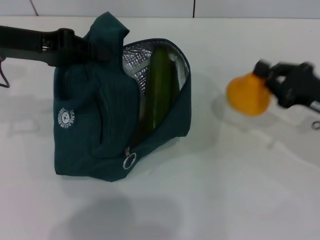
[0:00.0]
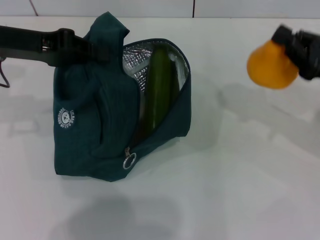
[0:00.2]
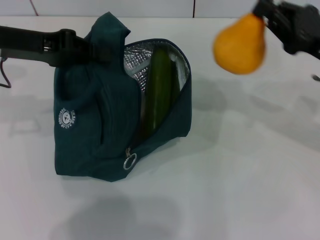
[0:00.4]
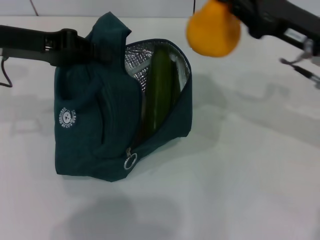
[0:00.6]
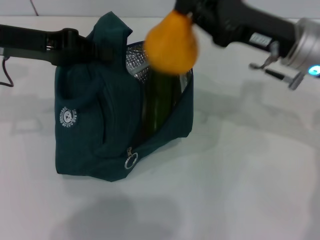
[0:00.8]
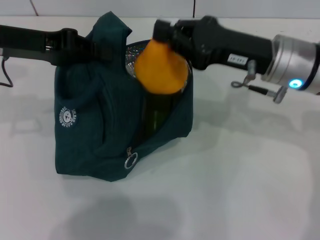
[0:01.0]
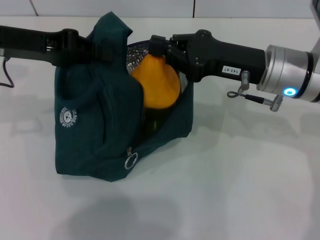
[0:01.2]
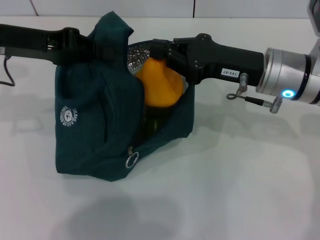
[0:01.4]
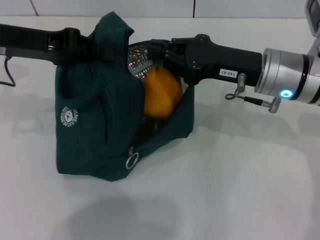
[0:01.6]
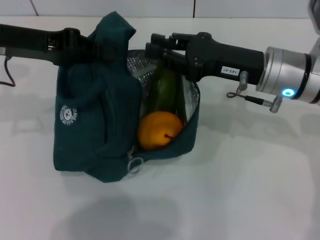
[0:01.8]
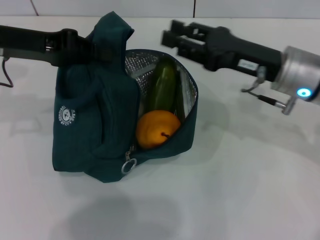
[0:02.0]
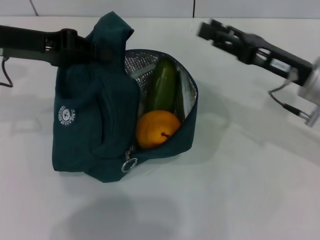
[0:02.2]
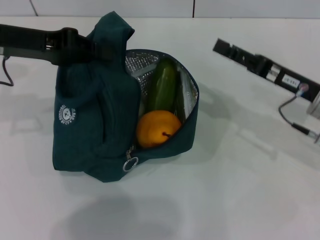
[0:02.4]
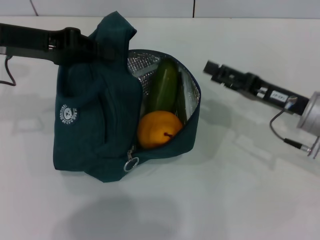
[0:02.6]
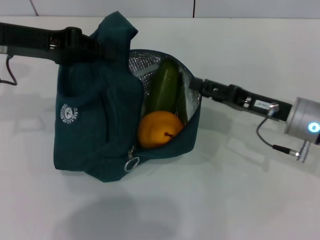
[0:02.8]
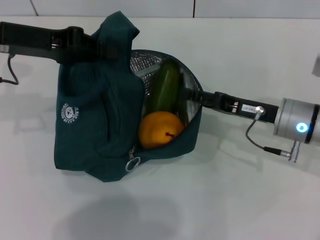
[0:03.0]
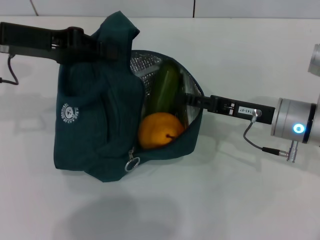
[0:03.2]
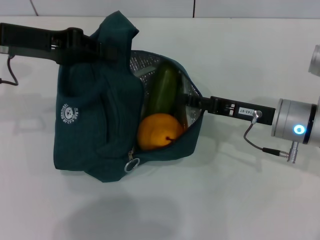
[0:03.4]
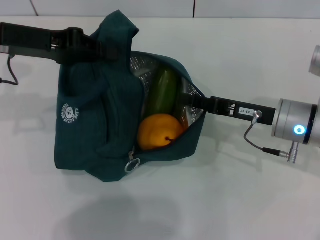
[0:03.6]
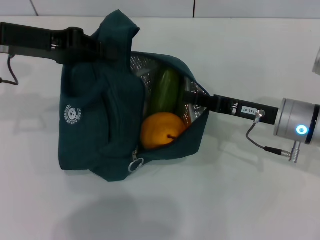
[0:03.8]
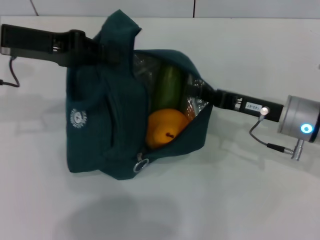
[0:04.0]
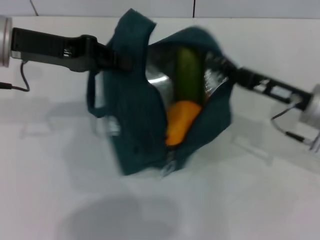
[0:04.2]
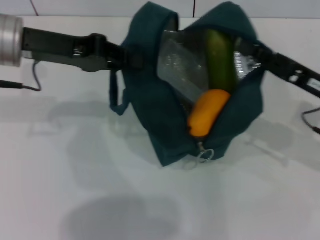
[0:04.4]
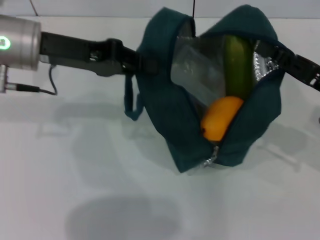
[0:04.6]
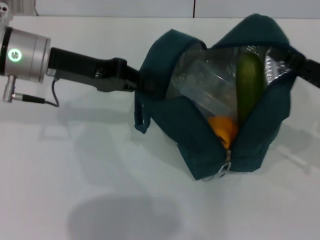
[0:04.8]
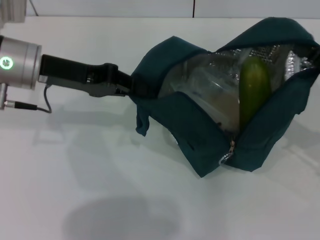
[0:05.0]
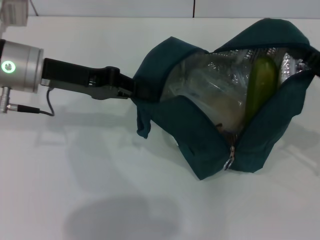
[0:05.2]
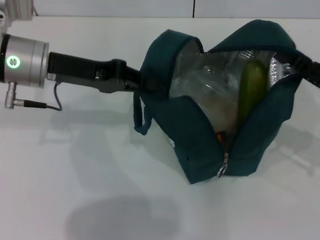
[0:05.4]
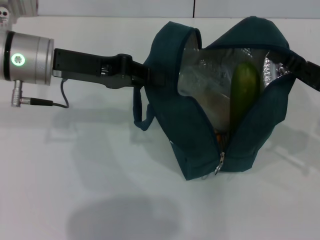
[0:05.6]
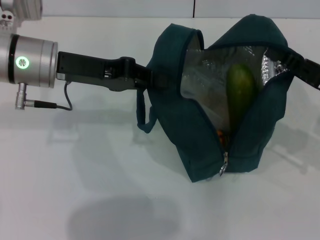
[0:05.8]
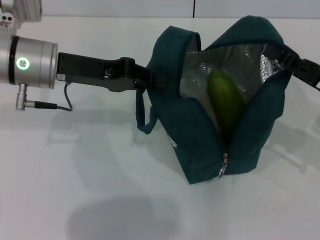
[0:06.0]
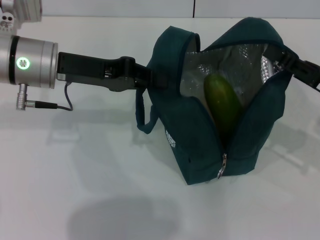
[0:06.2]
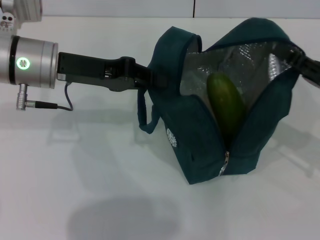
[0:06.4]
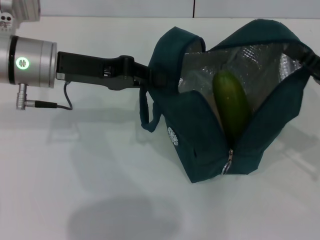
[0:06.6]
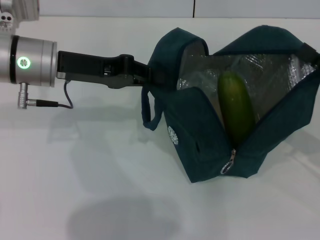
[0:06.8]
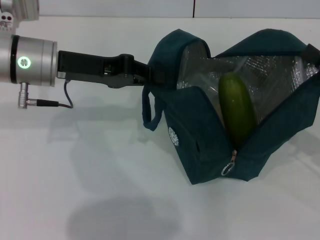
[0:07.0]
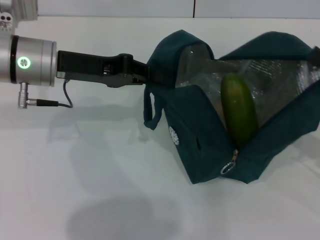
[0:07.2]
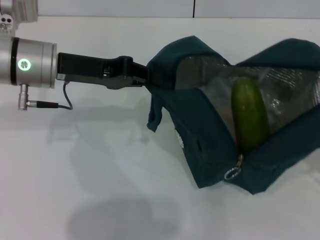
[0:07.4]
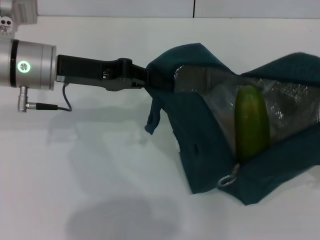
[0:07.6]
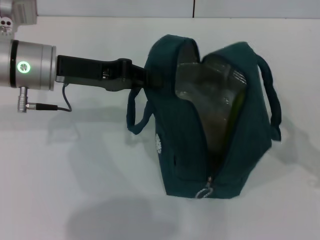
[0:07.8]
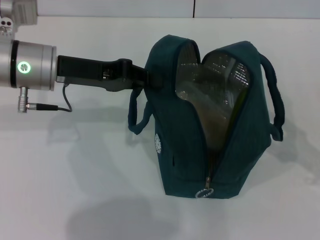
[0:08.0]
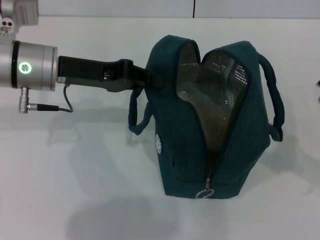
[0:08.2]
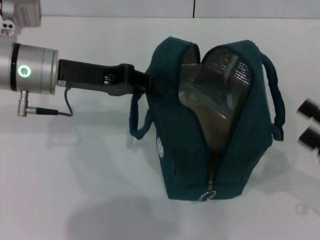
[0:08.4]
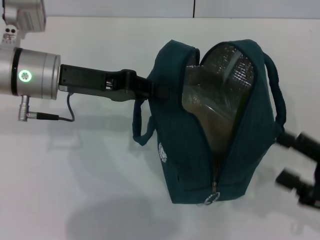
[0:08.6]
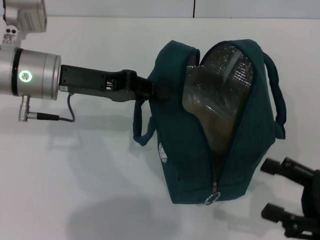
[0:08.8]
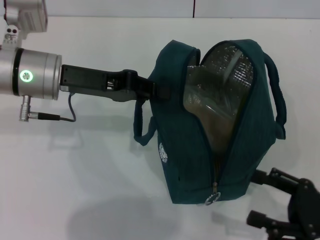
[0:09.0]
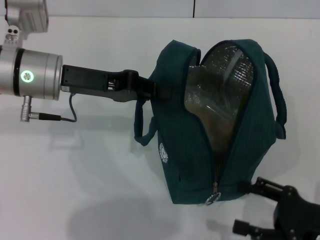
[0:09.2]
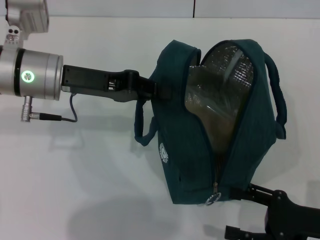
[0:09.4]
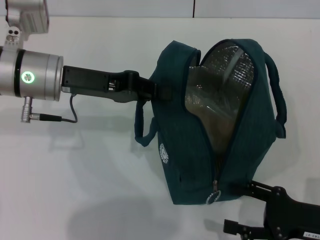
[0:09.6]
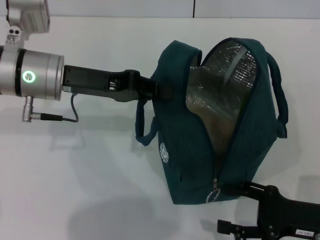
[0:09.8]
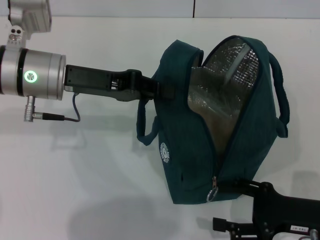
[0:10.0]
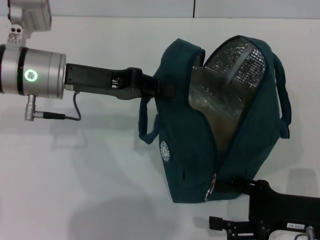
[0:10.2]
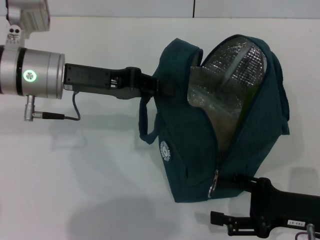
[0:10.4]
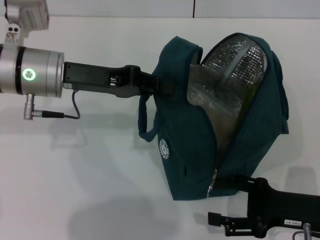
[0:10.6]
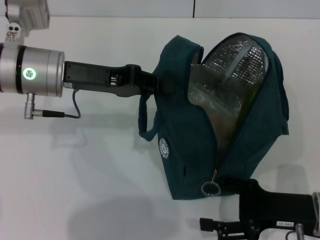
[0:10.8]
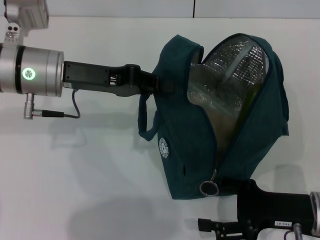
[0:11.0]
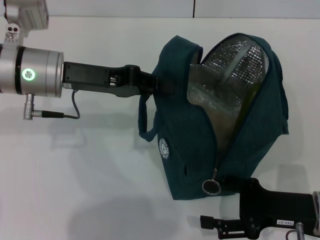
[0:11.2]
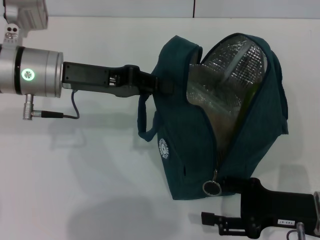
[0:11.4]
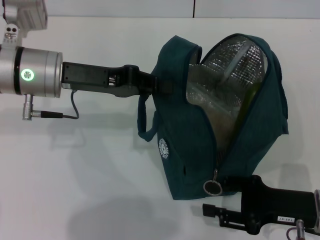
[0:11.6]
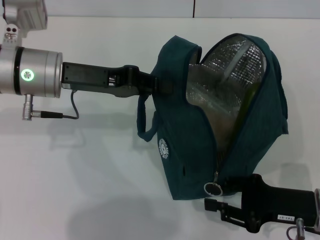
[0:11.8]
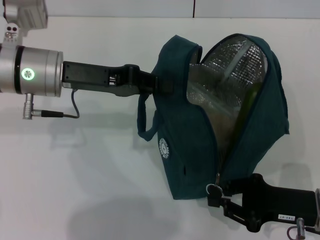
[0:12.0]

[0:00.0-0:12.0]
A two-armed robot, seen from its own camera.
Step, 0:01.8 to 0:08.0: Hold the lunch bag with your right hand.
0:00.0 to 0:01.6: The right gripper shifts roughly 15 cm to the left and upward.
0:01.6 to 0:03.0: The right gripper moves downward, about 5 cm, and opens.
0:03.0 to 0:04.4: The right gripper travels to the right by about 5 cm, and closes up.
0:06.0 to 0:07.6: The right gripper moves backward and to the right, some 10 cm, and opens its fingers.
0:07.6 to 0:09.0: The right gripper moves approximately 10 cm.
0:09.0 to 0:10.4: The right gripper changes place by roughly 5 cm.
0:10.4 to 0:12.0: The right gripper closes up.

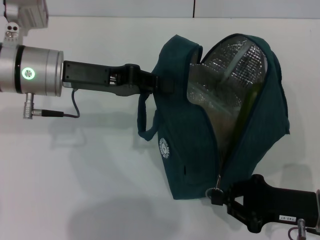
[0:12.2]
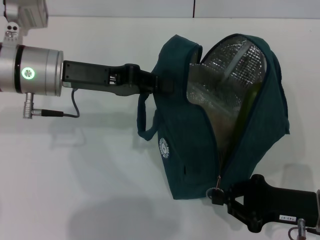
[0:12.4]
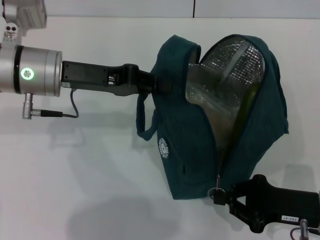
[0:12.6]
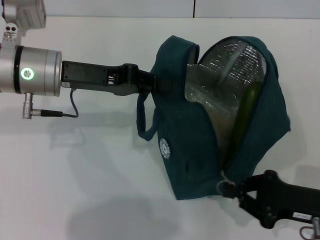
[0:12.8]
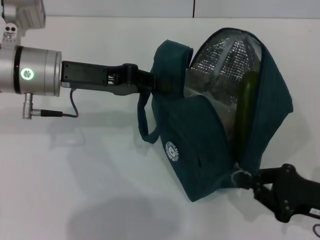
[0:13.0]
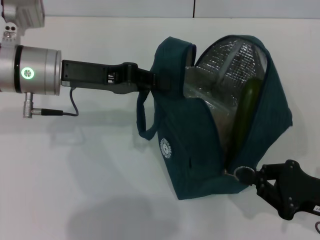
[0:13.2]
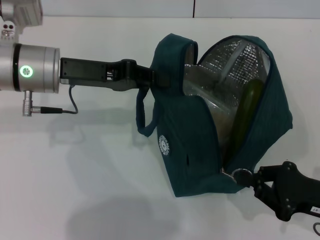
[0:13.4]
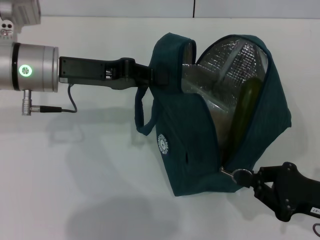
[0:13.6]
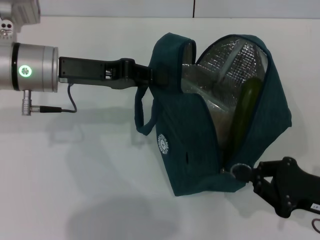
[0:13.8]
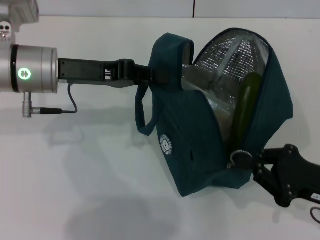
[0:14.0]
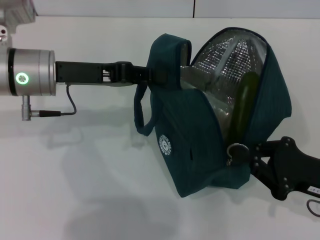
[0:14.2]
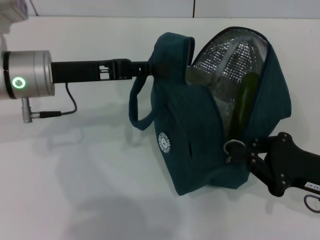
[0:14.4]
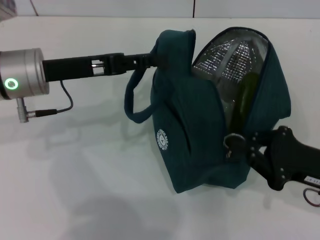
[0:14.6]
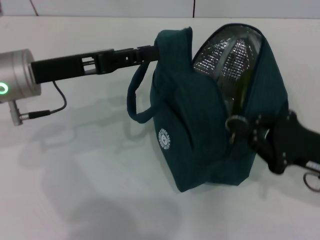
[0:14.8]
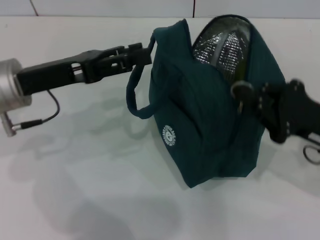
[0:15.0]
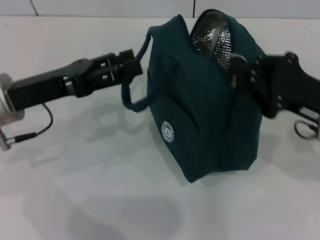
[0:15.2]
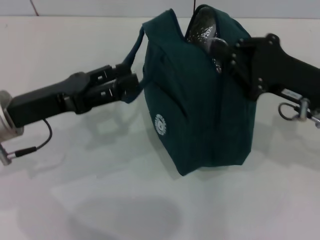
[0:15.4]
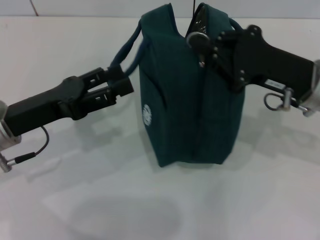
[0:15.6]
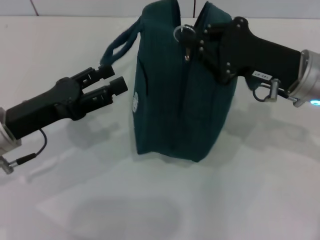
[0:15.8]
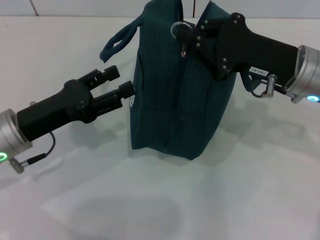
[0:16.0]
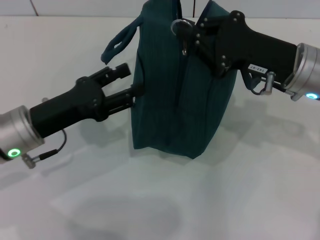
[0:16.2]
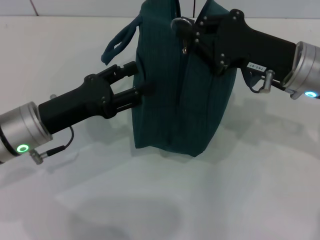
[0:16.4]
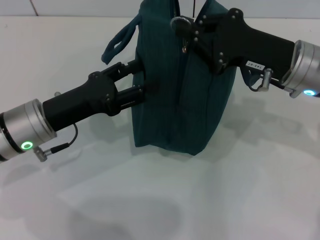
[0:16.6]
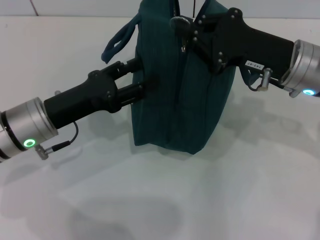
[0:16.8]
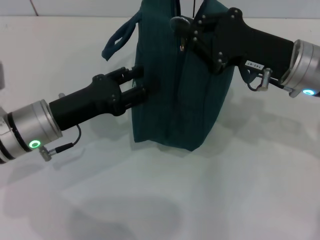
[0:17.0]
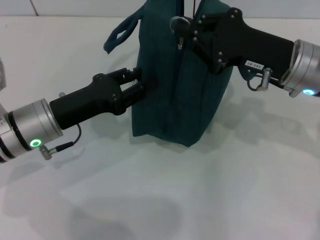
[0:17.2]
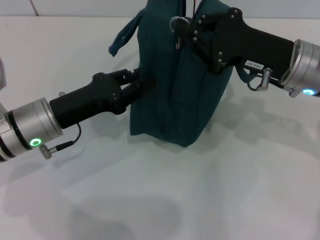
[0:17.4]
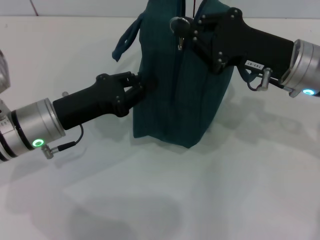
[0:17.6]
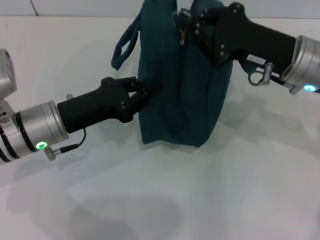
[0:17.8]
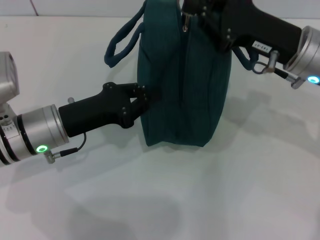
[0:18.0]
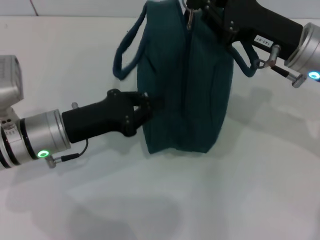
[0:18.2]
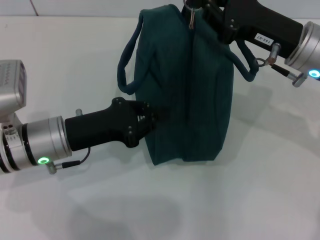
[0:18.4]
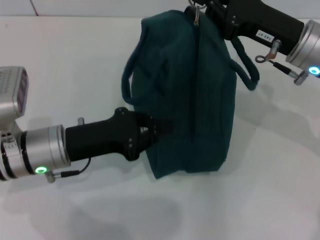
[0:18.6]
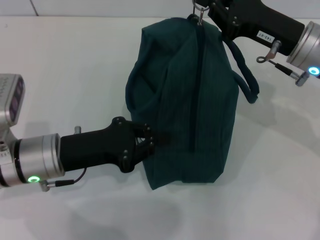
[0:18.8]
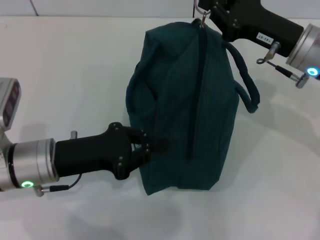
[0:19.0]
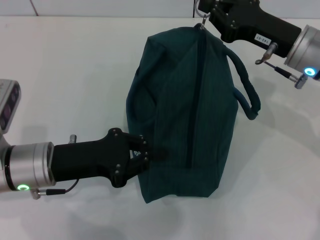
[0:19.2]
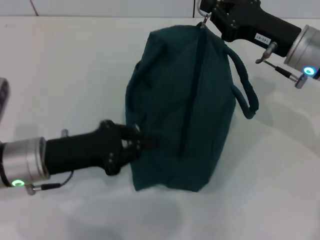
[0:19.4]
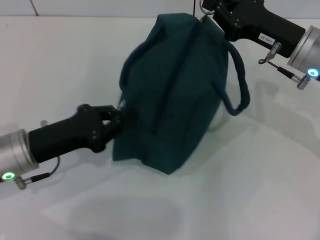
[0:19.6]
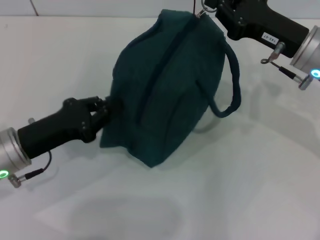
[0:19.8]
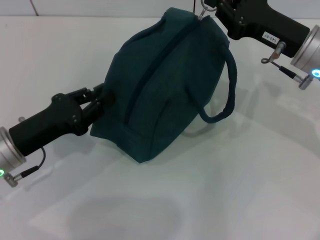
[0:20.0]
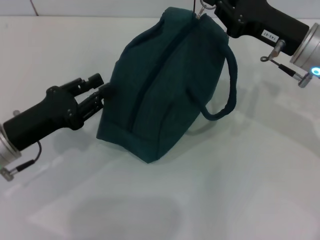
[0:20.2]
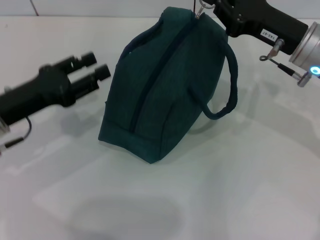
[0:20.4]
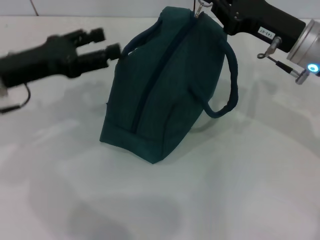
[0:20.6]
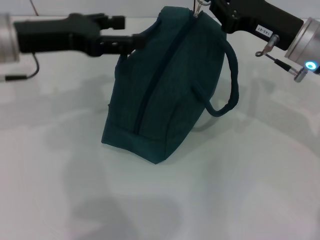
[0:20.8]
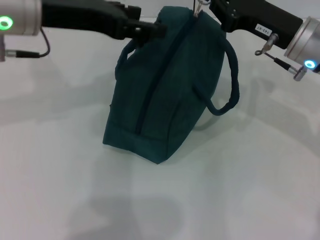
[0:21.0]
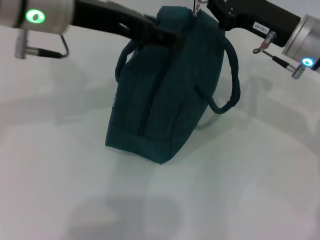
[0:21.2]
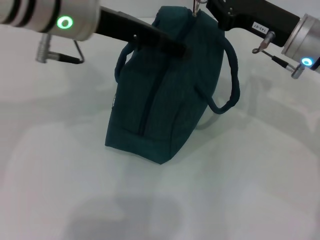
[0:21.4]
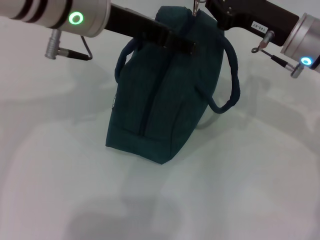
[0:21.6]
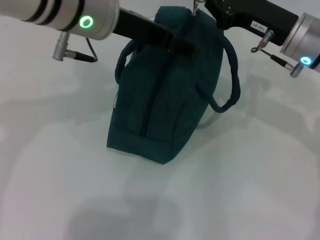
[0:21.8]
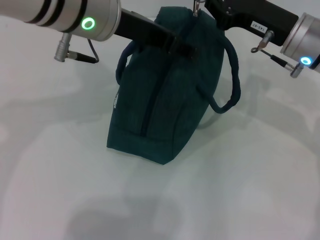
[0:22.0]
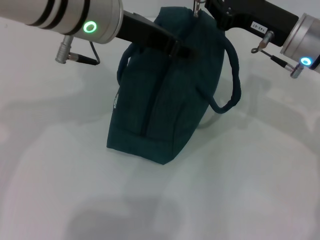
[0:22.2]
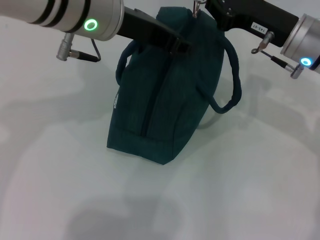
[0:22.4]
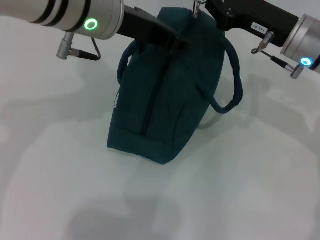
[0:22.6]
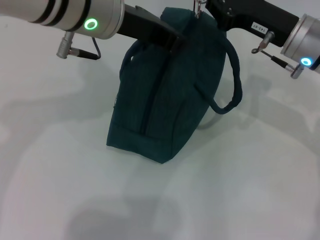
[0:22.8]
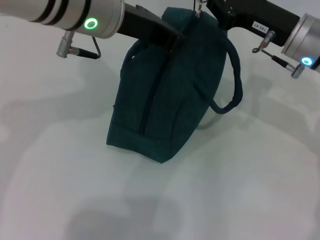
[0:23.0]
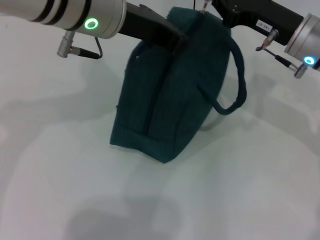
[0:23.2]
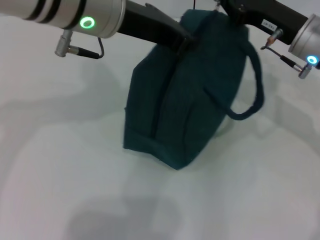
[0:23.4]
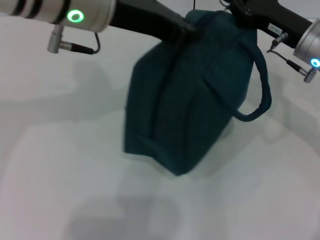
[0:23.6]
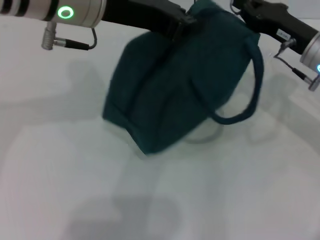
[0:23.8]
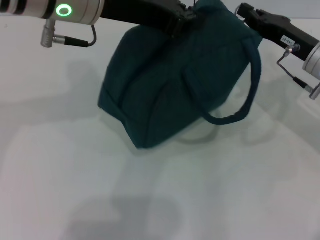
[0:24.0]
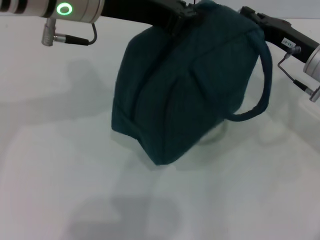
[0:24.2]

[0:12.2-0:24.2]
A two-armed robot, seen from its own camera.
Step, 0:12.2 to 0:14.6: Hold the lunch bag with your left hand.
0:12.2 to 0:13.8: The grippers make only small movements.
0:13.8 to 0:15.2: The right gripper moves forward and upward, some 10 cm; the left gripper travels backward by about 5 cm, and opens.
0:15.2 to 0:16.6: The left gripper heads downward, covering some 5 cm; the right gripper heads to the left and forward, covering some 10 cm.
0:16.6 to 0:18.2: The left gripper closes.
0:18.2 to 0:19.8: The left gripper ends up approximately 5 cm from where it was.
0:19.8 to 0:21.2: The left gripper is displaced upward, to the right and forward by some 25 cm, and opens.
0:21.2 to 0:22.6: The left gripper shifts about 5 cm to the right, and closes up.
0:22.6 to 0:24.2: The right gripper changes place by roughly 5 cm, while the left gripper closes up.
